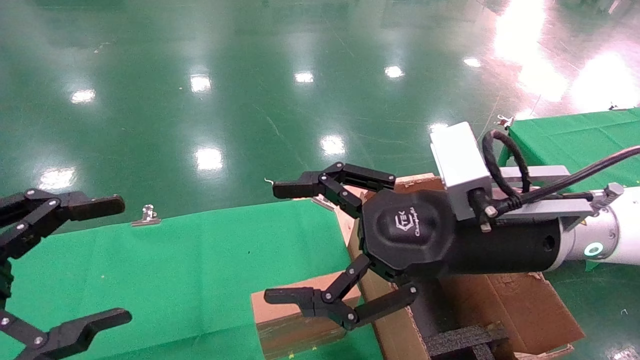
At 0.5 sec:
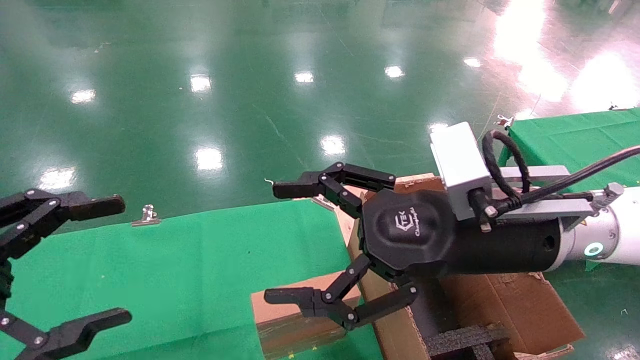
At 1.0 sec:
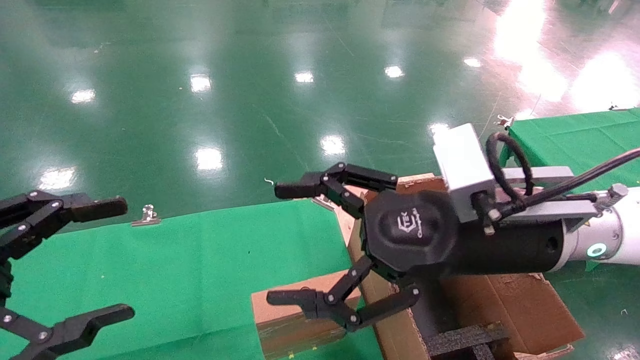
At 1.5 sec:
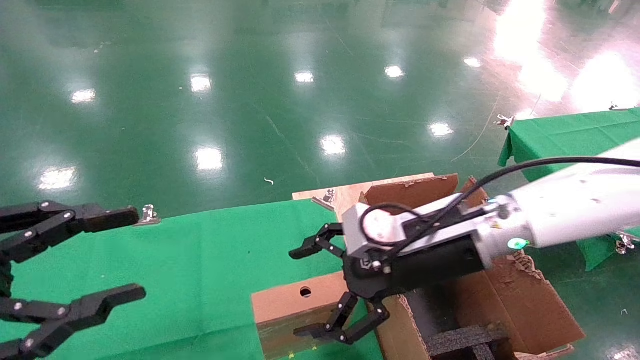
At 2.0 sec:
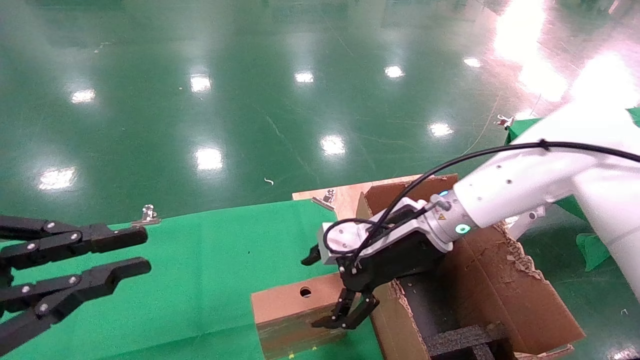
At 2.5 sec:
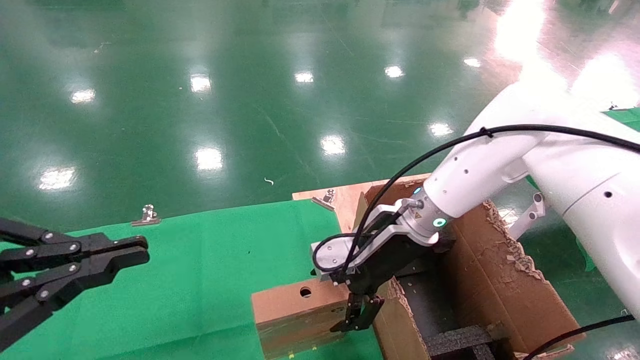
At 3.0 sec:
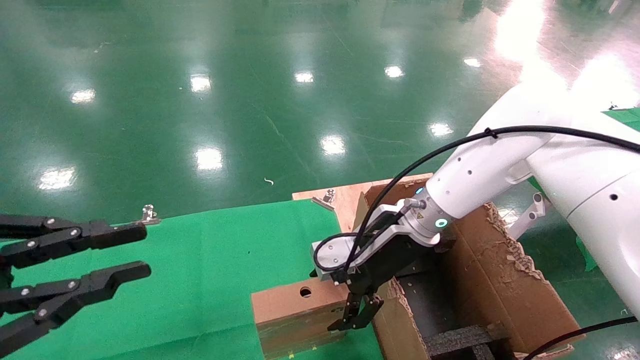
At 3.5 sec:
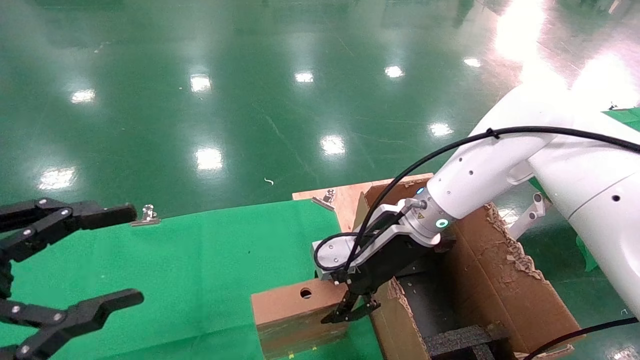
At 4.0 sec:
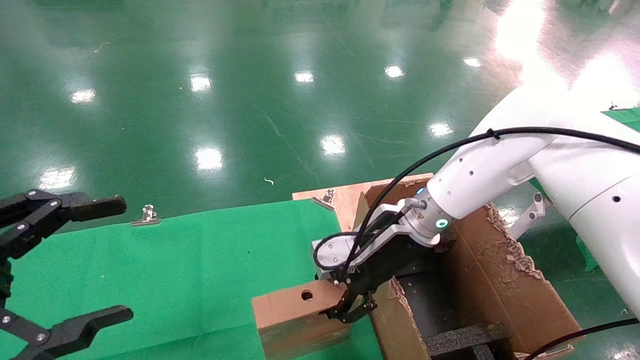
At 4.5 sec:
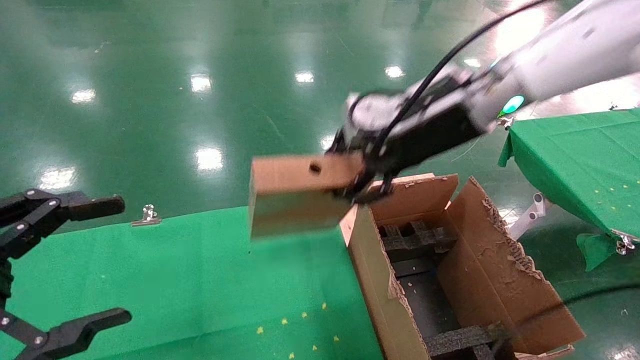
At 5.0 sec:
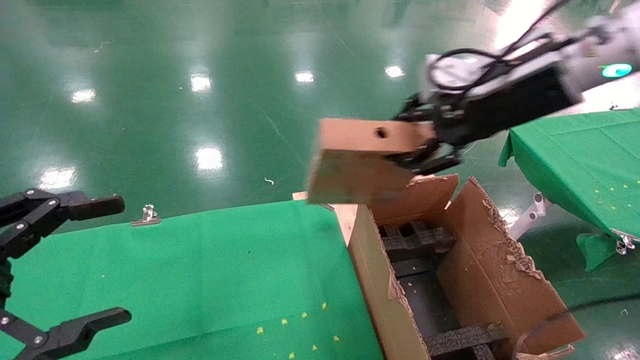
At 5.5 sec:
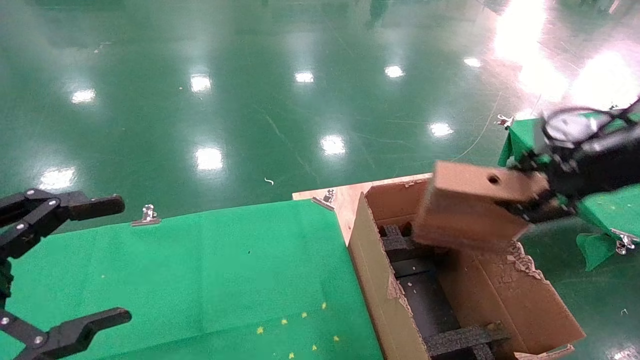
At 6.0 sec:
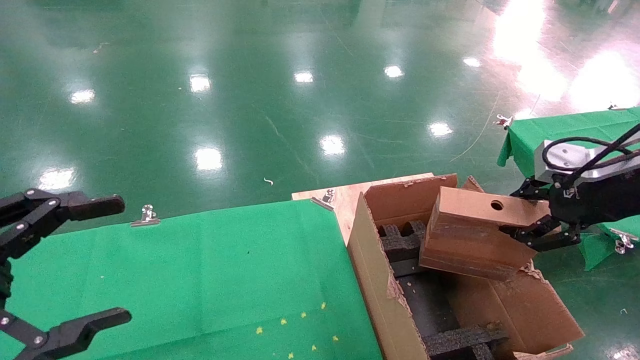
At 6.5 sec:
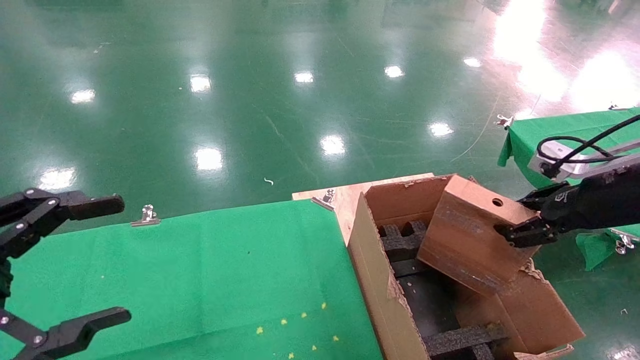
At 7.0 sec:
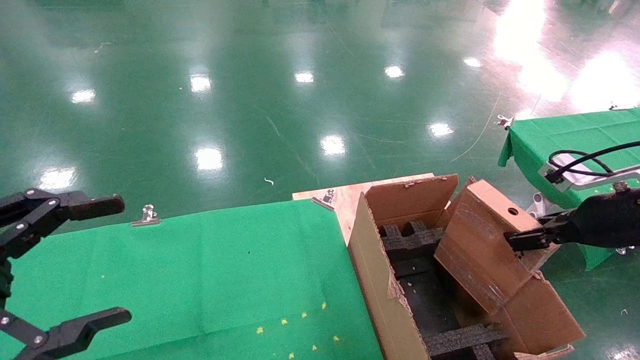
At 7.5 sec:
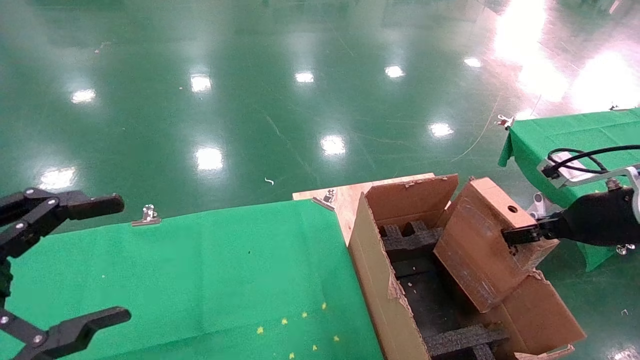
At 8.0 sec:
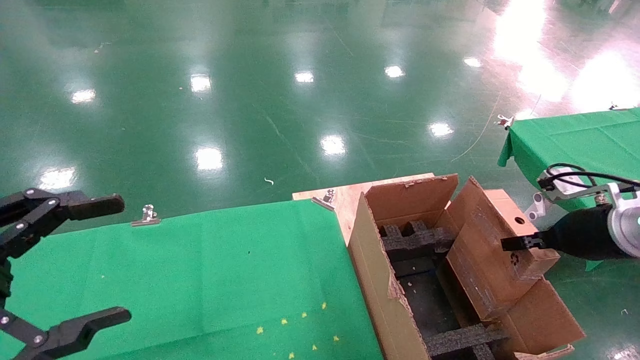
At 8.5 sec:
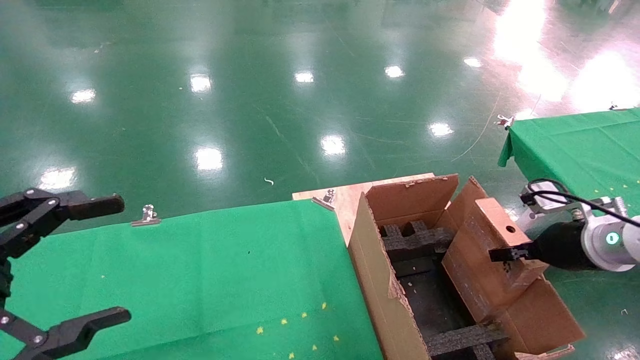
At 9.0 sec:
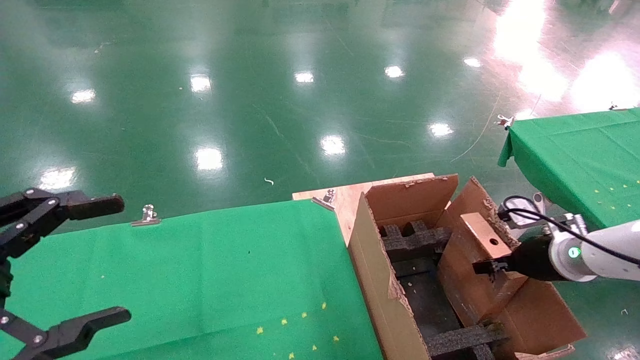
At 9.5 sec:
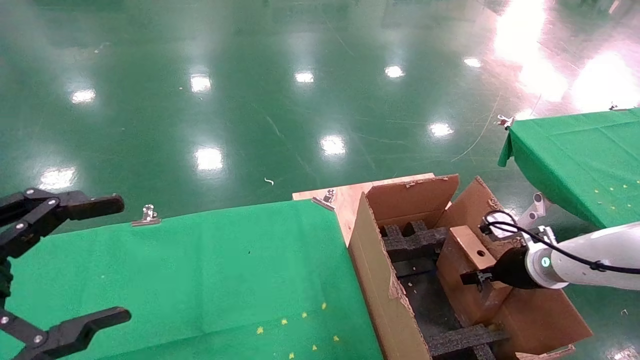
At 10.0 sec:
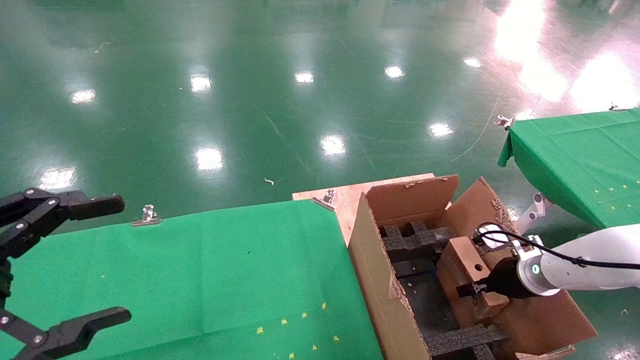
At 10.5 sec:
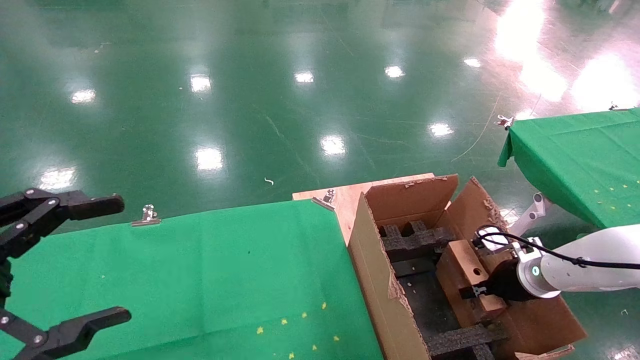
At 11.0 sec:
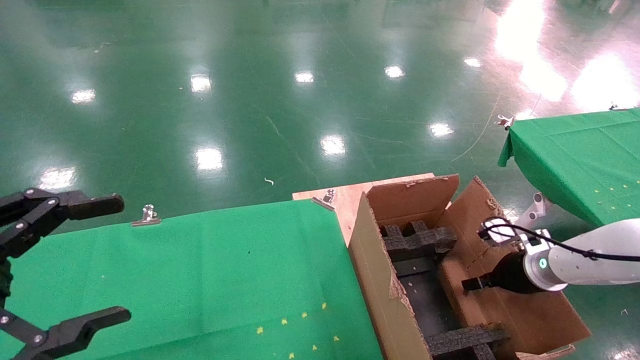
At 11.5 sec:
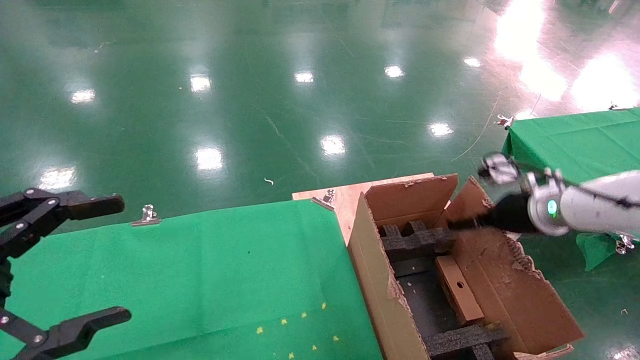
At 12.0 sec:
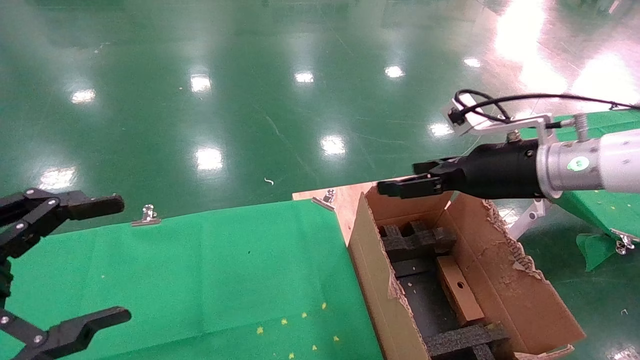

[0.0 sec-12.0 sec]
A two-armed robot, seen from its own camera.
Task of the whole recording: using a robotic arm to pick up a cardboard box and palace it the carton.
Step, 1.5 sec to 3.5 sec: Pick up the mouse and the power cord paper box.
Step, 4.0 sec to 11.5 sec: Place the mouse and the power cord paper box into the container.
0.0 sec to 2.0 sec: The right gripper goes about 15 cm forward and downward, while the left gripper closes up.
2.0 sec to 4.0 sec: The left gripper opens its fingers. The right gripper closes its fingers.
4.0 sec to 6.0 sec: The right gripper moves to the right and backward, roughly 30 cm.
6.0 sec to 8.0 sec: The right gripper moves downward, some 10 cm.
8.0 sec to 10.0 sec: The right gripper shifts approximately 15 cm downward and forward.
10.0 sec to 12.0 sec: The right gripper goes approximately 25 cm upward and to the left, and opens its fingers.

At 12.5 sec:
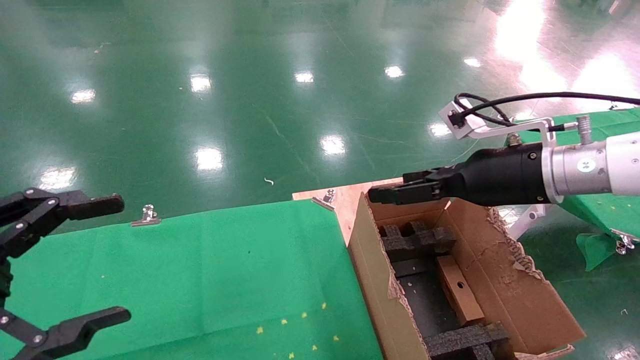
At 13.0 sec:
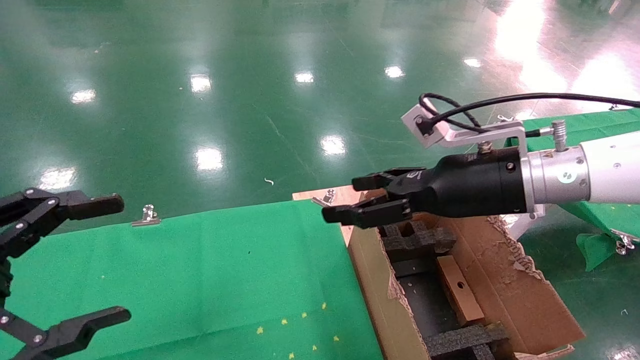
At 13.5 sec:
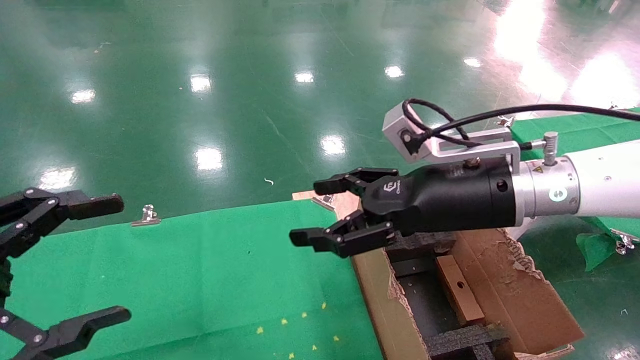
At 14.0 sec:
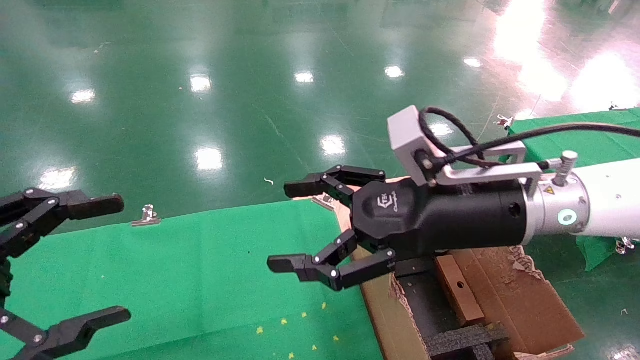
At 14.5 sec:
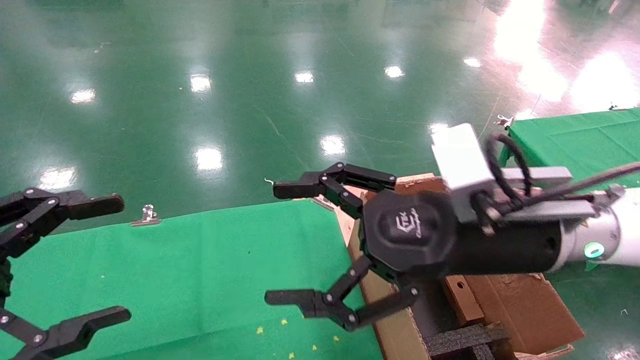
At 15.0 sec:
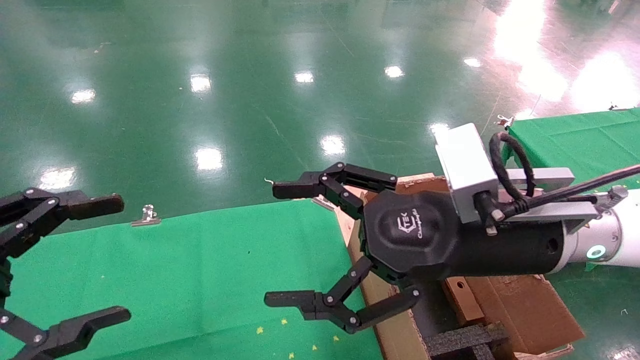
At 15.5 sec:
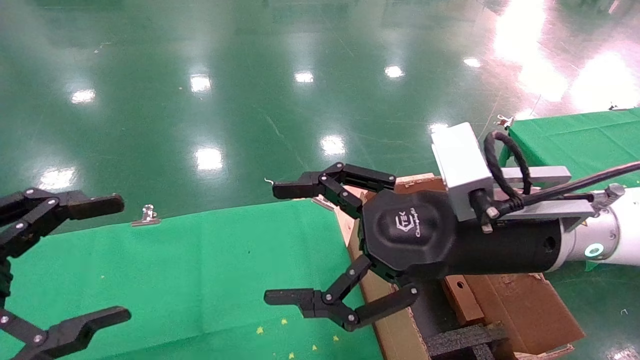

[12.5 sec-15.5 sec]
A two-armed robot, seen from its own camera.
Task of the whole recording: using a robotic arm to pick up a cardboard box and palace it the carton.
12.5 sec to 14.0 sec: The right gripper shifts approximately 10 cm to the left and backward.
14.0 sec to 15.5 sec: There are only small adjustments of the grippers.
